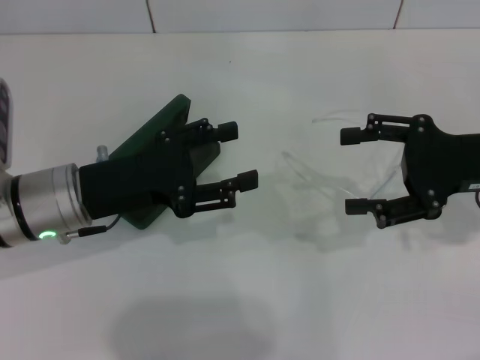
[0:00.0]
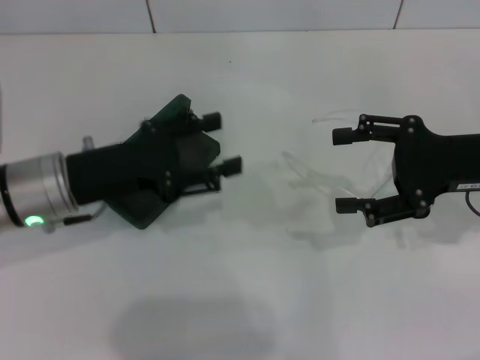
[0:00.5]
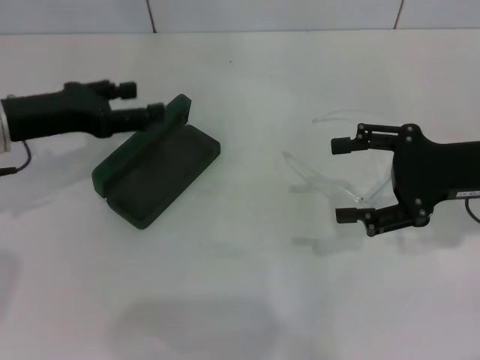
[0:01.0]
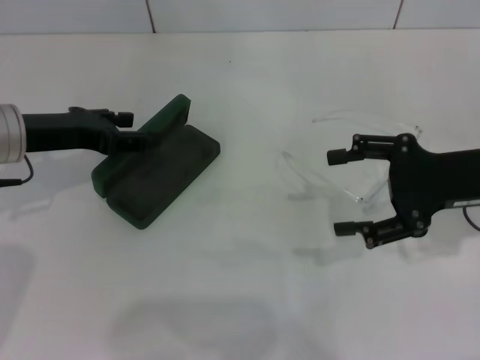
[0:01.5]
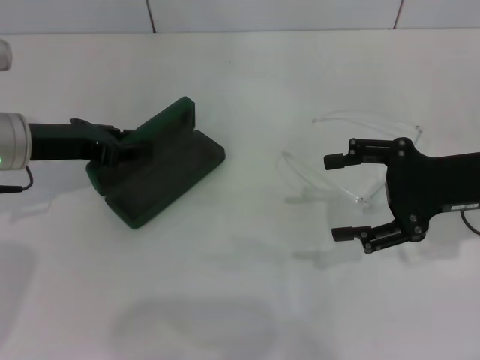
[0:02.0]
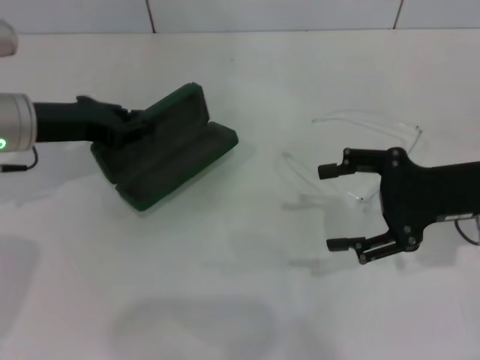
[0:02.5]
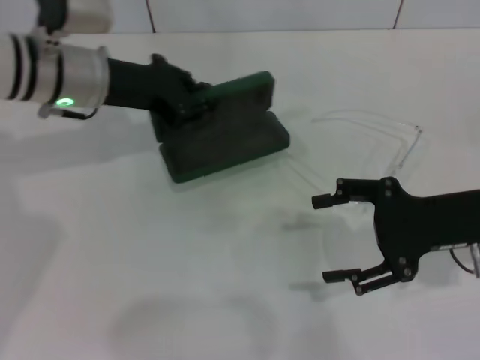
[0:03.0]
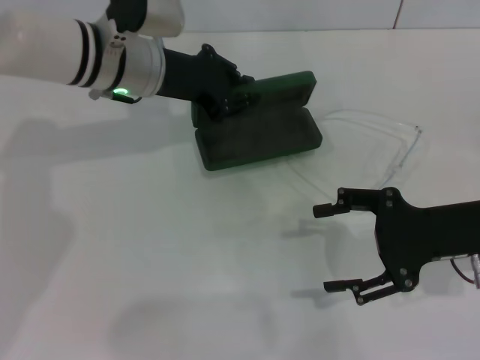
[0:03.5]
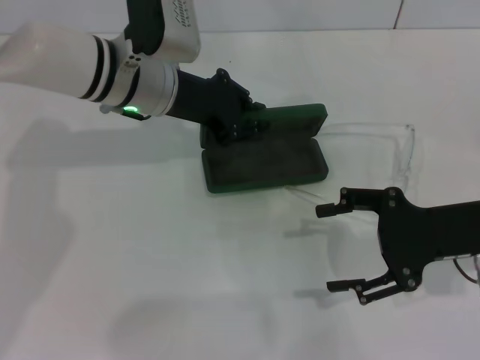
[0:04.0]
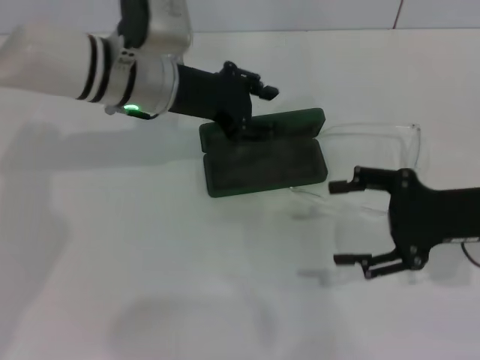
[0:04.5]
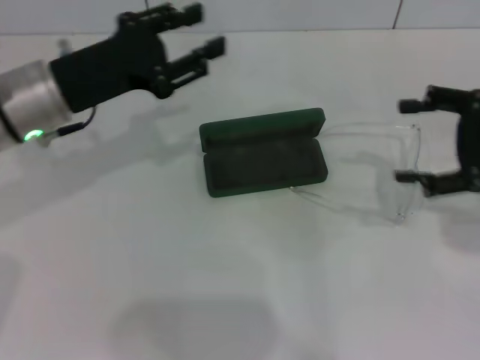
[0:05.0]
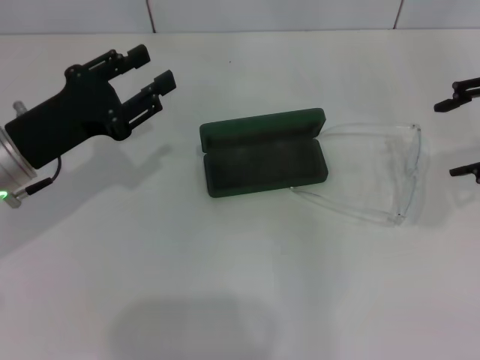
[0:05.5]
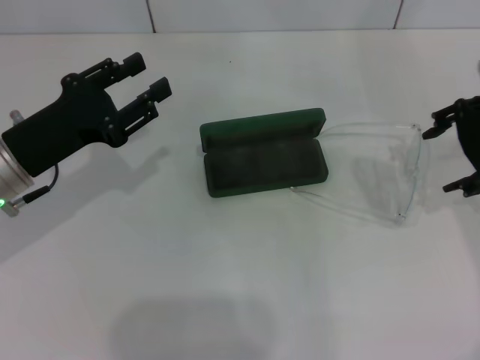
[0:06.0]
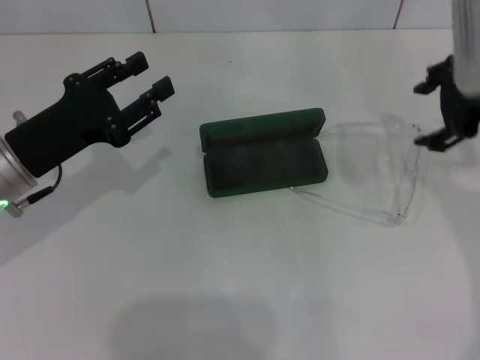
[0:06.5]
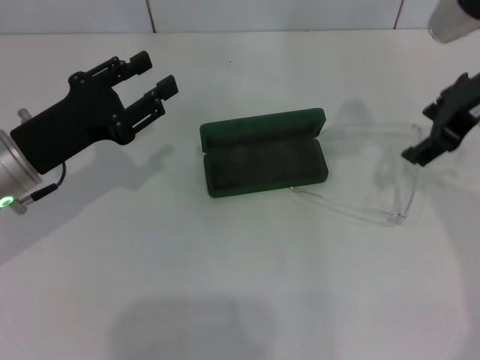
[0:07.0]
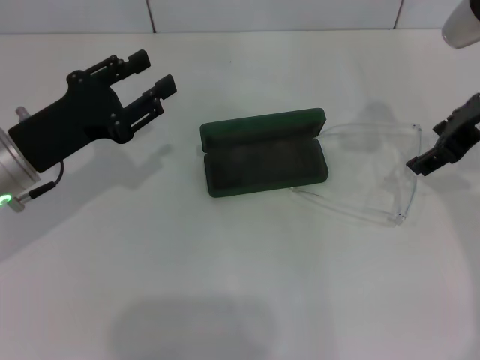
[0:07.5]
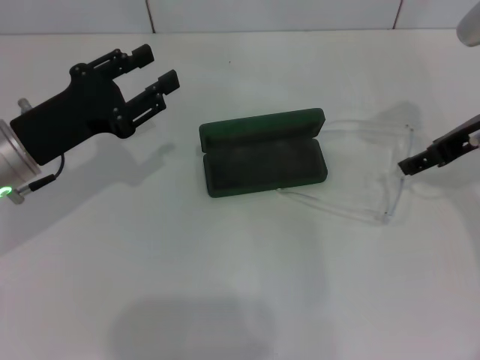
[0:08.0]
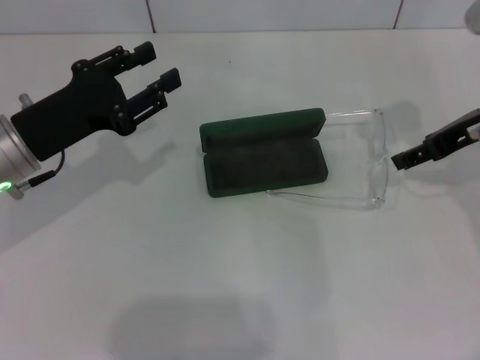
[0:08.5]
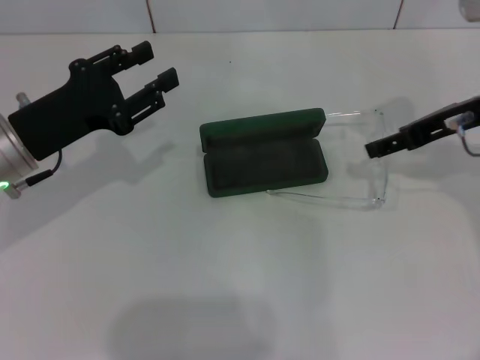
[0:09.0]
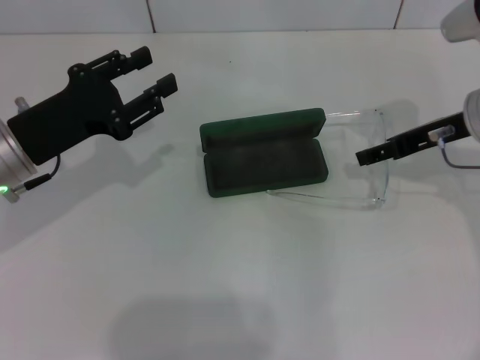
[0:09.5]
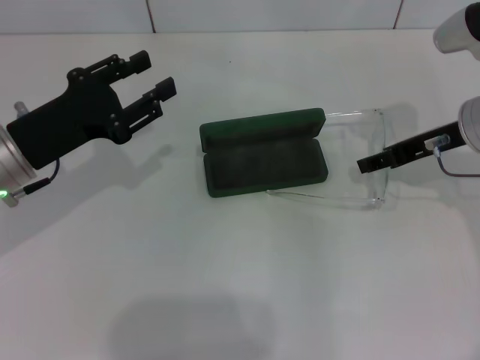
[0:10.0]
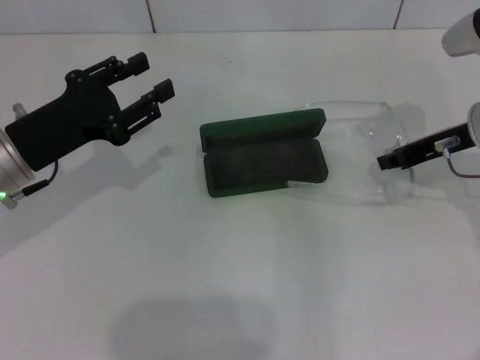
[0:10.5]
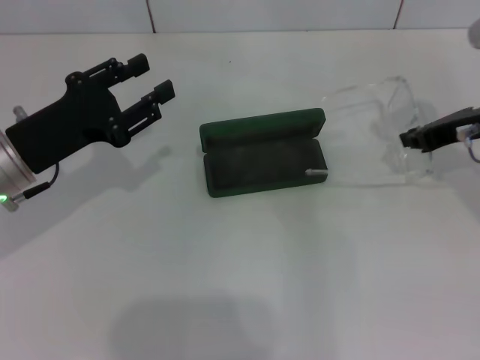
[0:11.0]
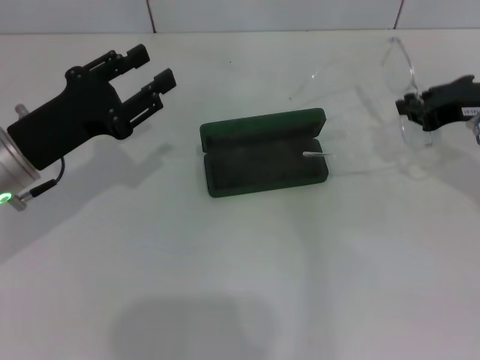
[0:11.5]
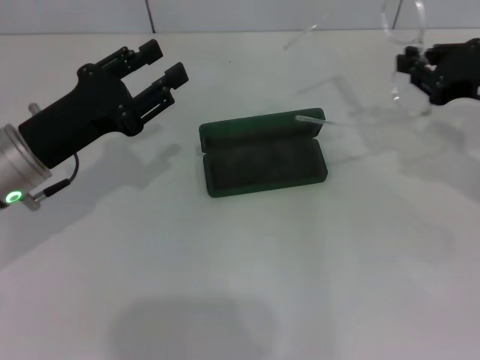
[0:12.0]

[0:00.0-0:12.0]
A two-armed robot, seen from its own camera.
Step, 0:00.0 to 0:01.5: Grab the glasses case with your left hand.
Step, 0:02.5 to 0:04.5: Place the glasses case in the center of the table with your left hand.
Step, 0:05.0 to 0:10.0: Grab the eyeglass frame with your right hand.
0:00.0 to 0:02.0: The left gripper goes about 10 cm forward and to the left, and closes up.
0:02.0 to 0:04.0: The left gripper goes roughly 15 cm to the right and forward, and closes up.
0:04.0 to 0:06.0: The right gripper shifts approximately 15 cm upward and forward. Meanwhile the left gripper travels to the left and backward by approximately 15 cm, and opens its fingers.
0:08.0 to 0:10.0: The grippers move only a little.
0:10.0 to 0:12.0: The right gripper goes roughly 5 cm to the right, and closes its fingers.

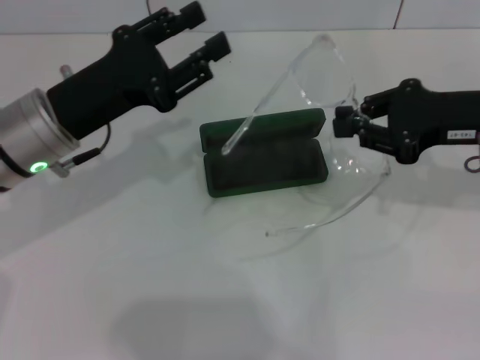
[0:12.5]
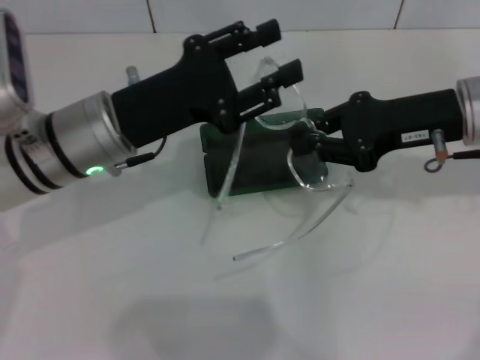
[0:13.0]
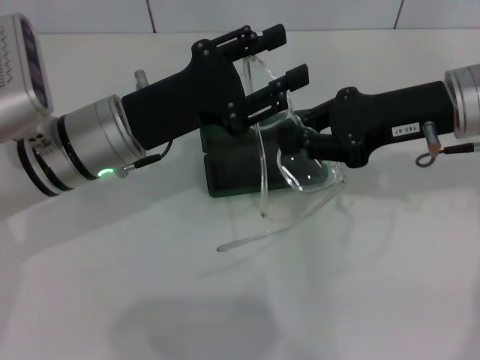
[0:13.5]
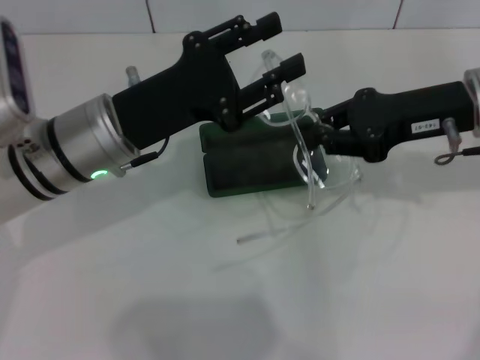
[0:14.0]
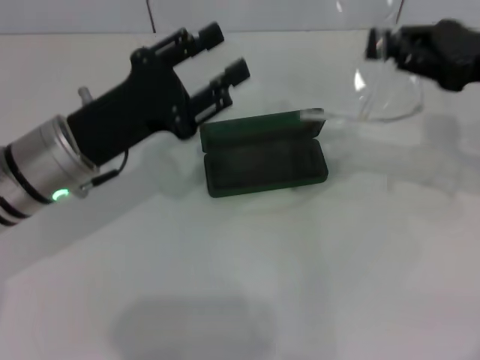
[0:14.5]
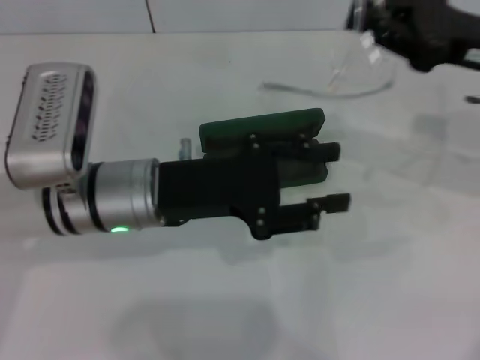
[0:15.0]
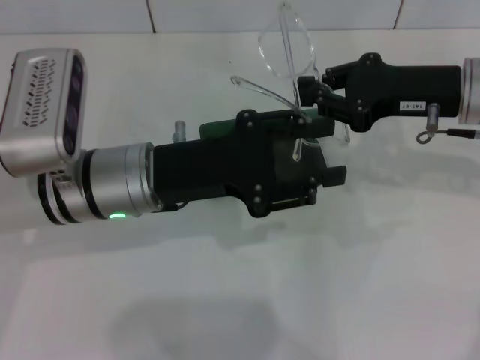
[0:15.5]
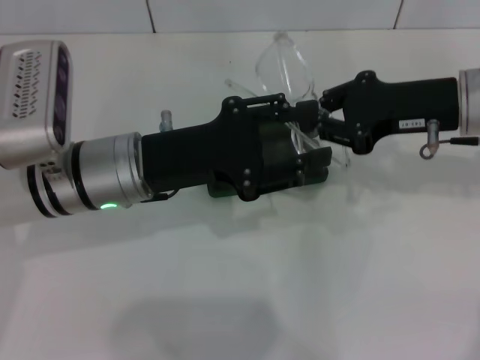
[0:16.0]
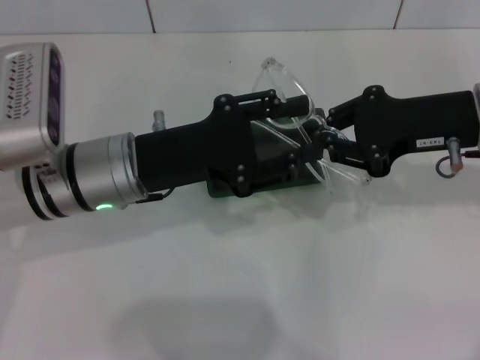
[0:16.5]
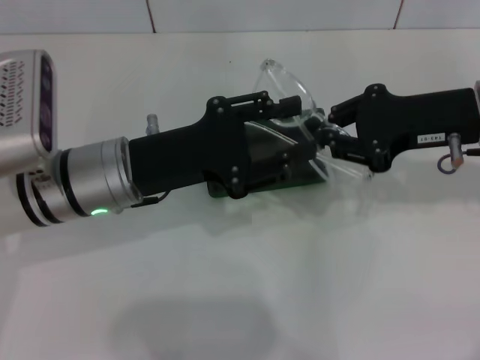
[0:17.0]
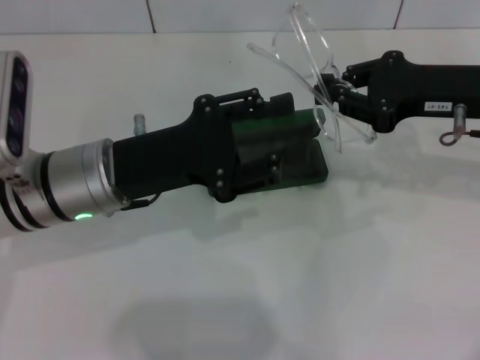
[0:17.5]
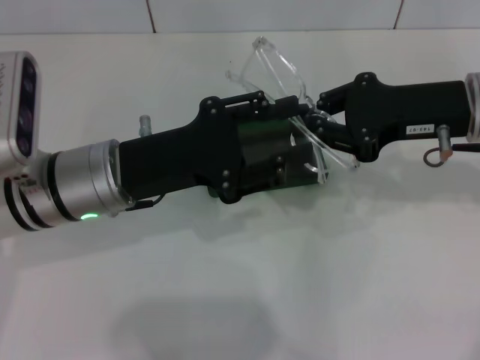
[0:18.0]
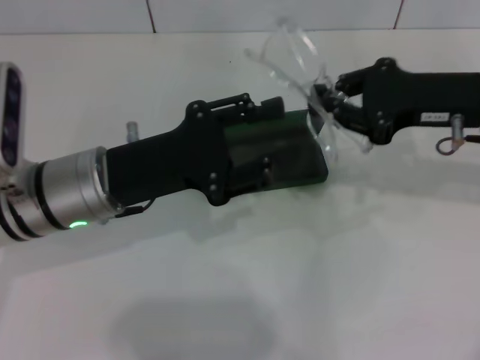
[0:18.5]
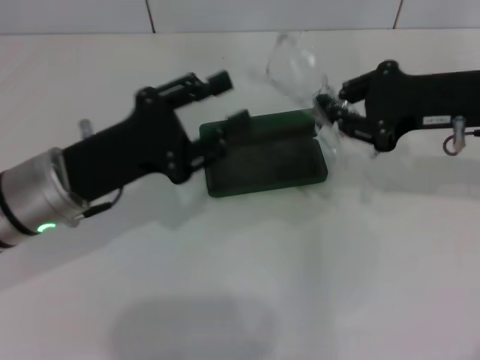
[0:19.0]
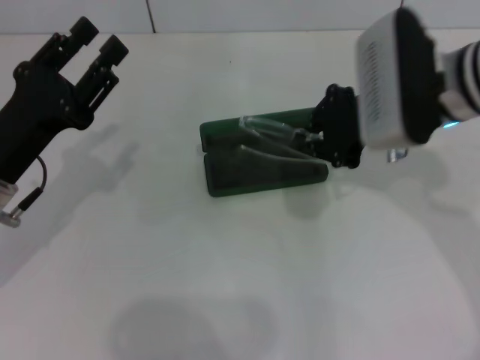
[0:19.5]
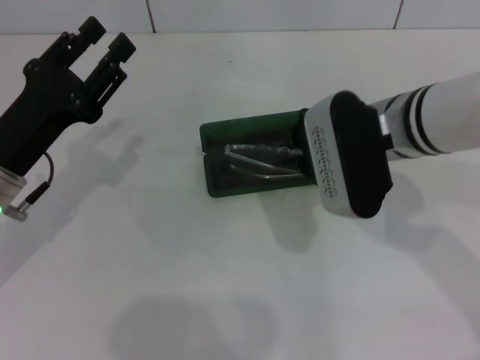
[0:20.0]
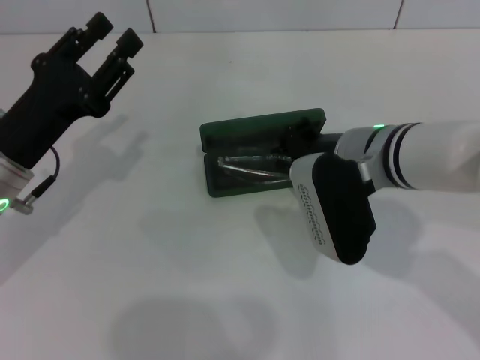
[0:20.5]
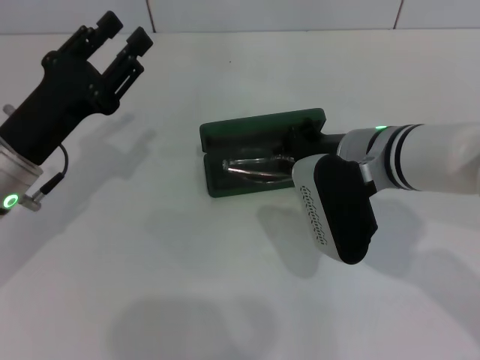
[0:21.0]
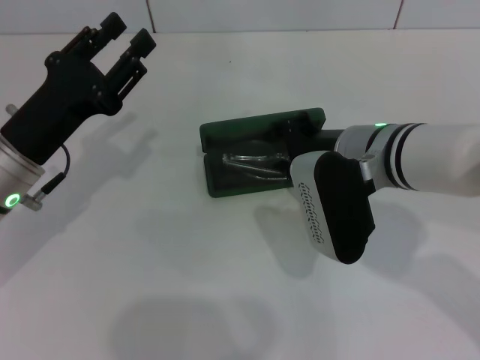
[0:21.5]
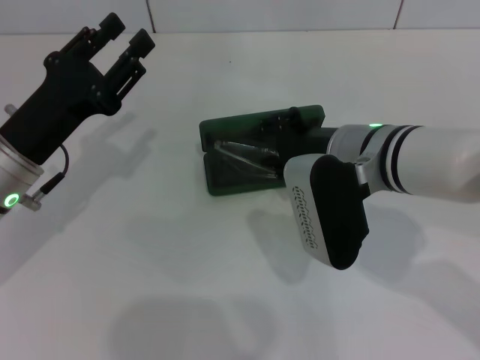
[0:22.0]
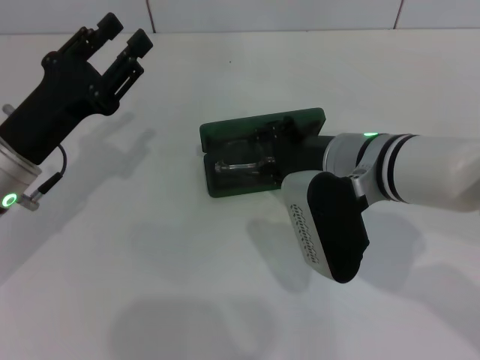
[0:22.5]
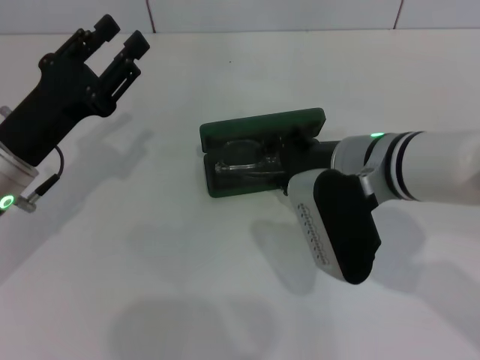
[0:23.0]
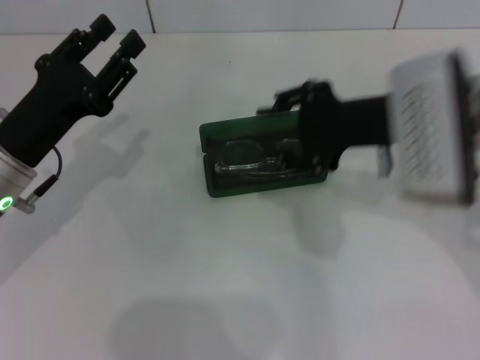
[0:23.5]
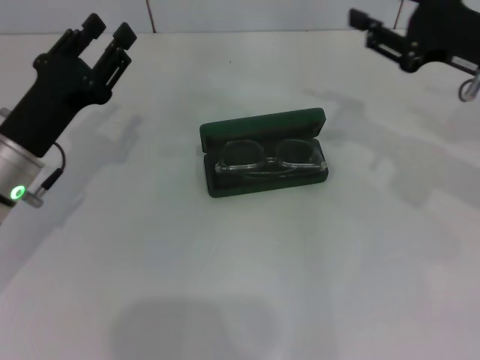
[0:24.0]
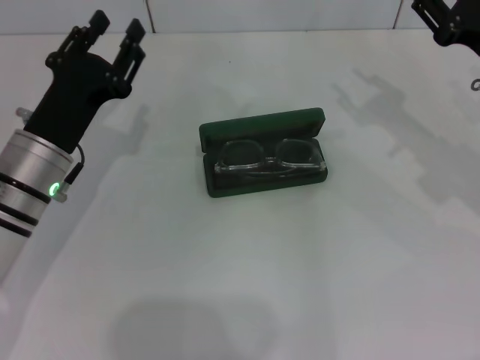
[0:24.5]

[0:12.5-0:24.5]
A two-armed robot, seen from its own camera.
Step, 0:12.5 to 0:18.0: Fold the frame with your left hand.
Step, 0:18.5 to 0:23.0: Put the glasses into the case with your right hand.
0:12.5 to 0:14.5: The right gripper moves some 5 cm to the left and comes back.
0:14.5 to 0:16.5: The right gripper is displaced to the left by some 5 cm.
0:16.5 to 0:18.5: The grippers make only small movements.
0:18.5 to 0:20.5: The left gripper heads to the left, covering about 5 cm. Meanwhile the right gripper shifts roughly 15 cm to the left and downward.
0:20.5 to 0:22.5: The right gripper opens its fingers.
0:22.5 to 0:24.5: The right gripper is displaced to the right by some 15 cm.

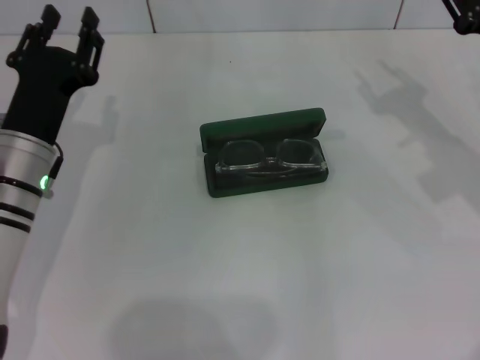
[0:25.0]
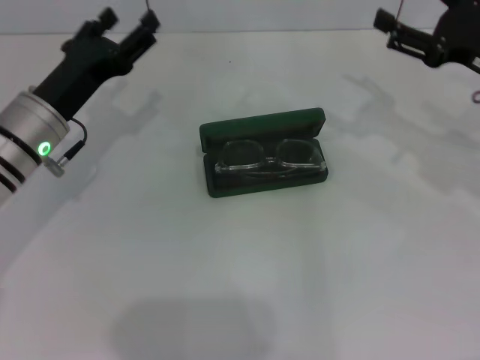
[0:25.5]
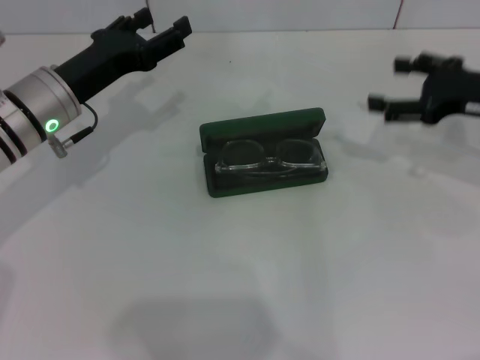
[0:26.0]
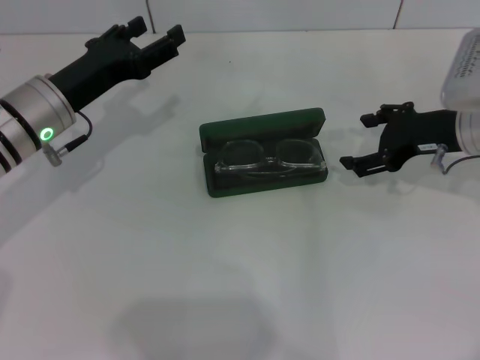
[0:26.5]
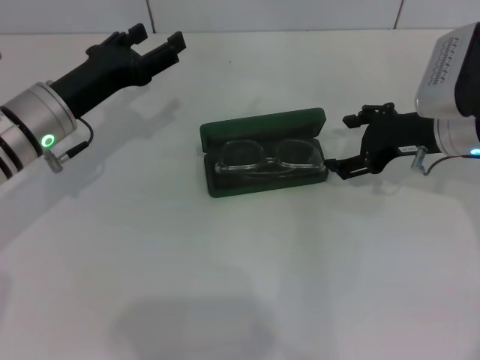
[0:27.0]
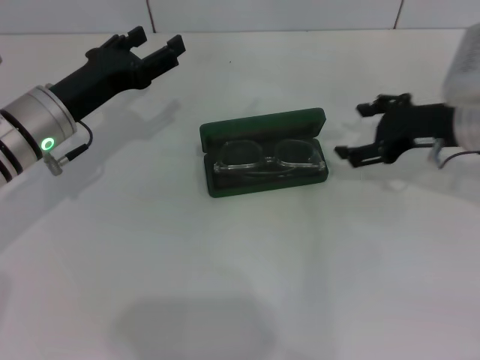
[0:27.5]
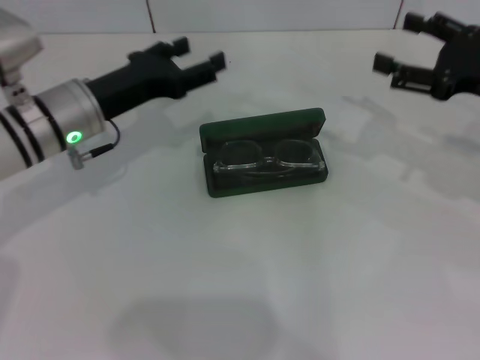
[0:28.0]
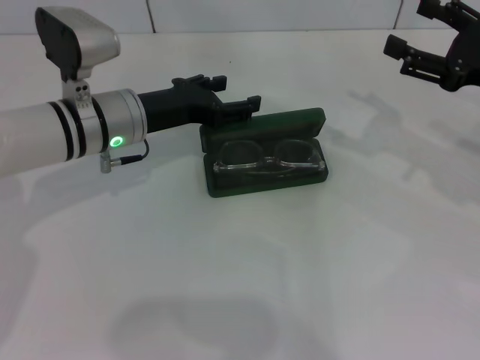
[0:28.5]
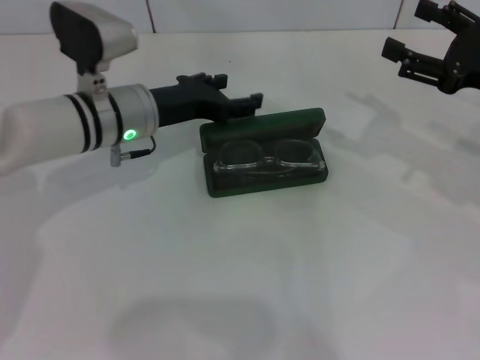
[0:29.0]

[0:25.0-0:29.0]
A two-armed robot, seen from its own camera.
0:25.0 to 0:27.0: The right gripper heads to the left, covering roughly 5 cm, and opens, while the left gripper moves forward, about 5 cm, and opens its fingers.
0:27.0 to 0:29.0: The two grippers go roughly 10 cm to the right.
